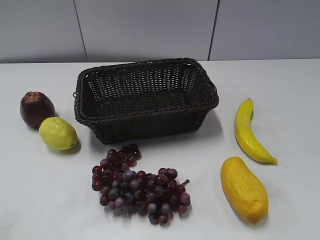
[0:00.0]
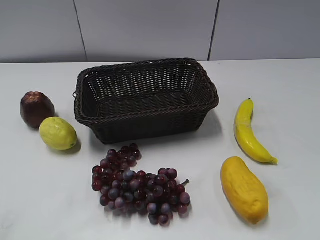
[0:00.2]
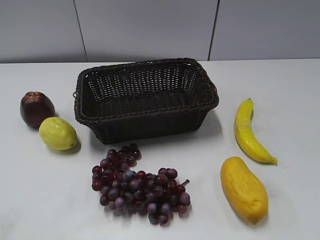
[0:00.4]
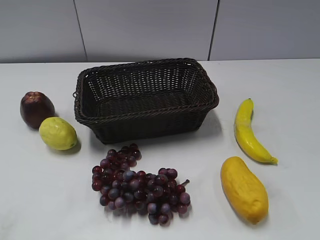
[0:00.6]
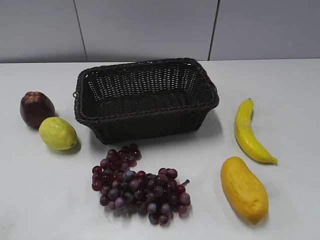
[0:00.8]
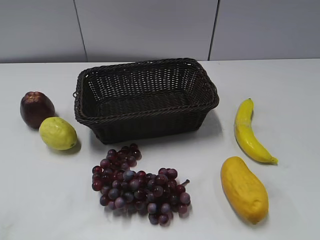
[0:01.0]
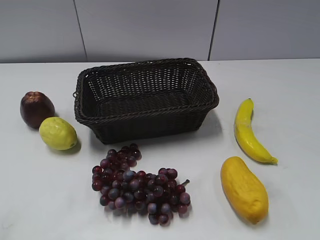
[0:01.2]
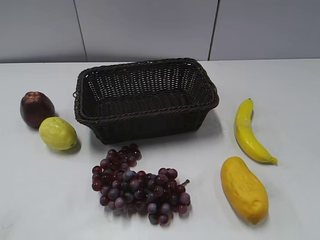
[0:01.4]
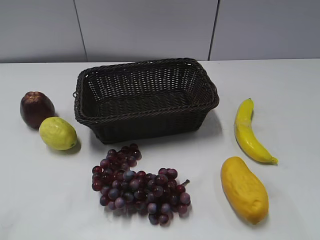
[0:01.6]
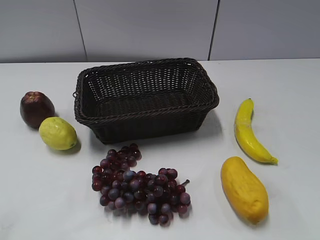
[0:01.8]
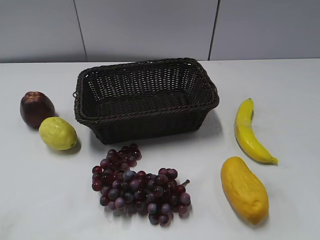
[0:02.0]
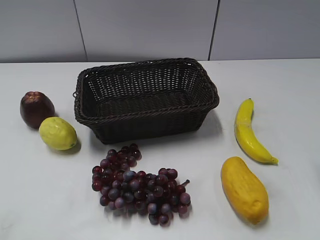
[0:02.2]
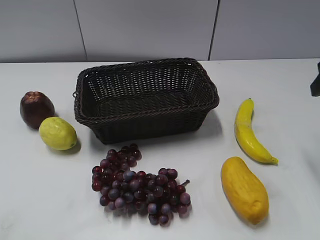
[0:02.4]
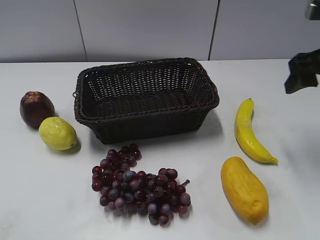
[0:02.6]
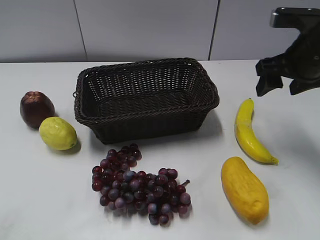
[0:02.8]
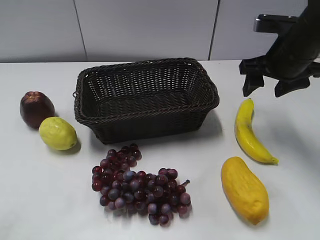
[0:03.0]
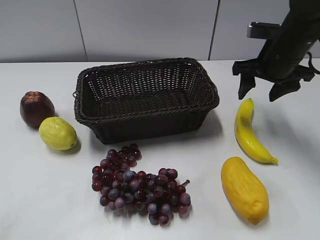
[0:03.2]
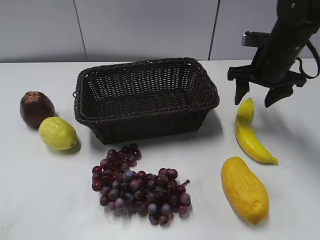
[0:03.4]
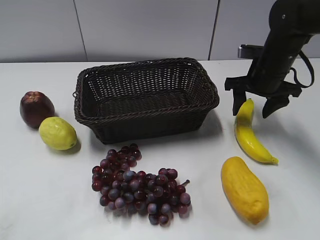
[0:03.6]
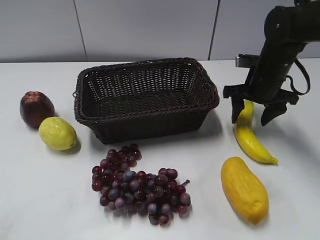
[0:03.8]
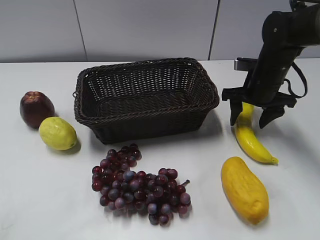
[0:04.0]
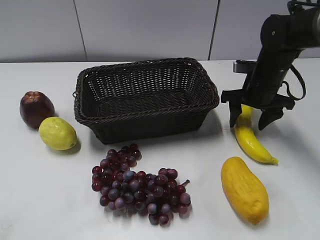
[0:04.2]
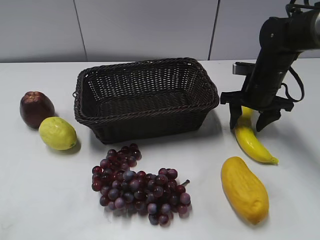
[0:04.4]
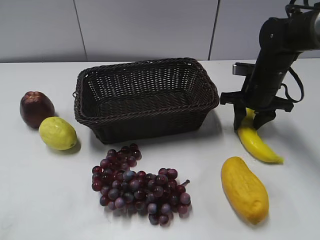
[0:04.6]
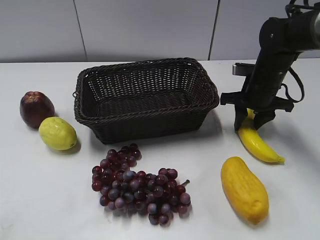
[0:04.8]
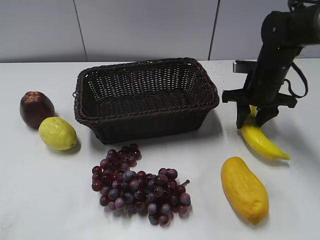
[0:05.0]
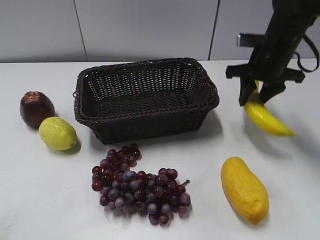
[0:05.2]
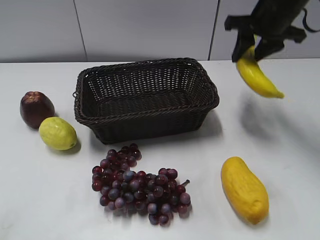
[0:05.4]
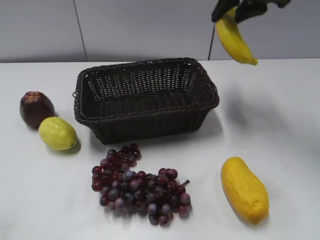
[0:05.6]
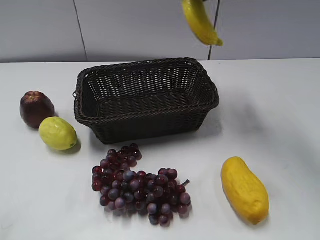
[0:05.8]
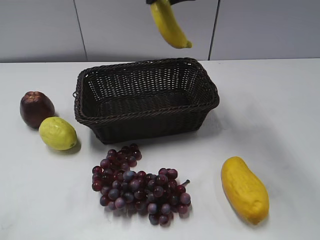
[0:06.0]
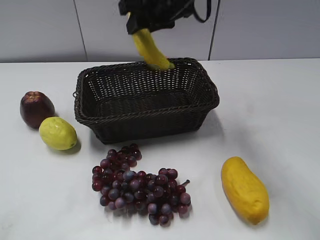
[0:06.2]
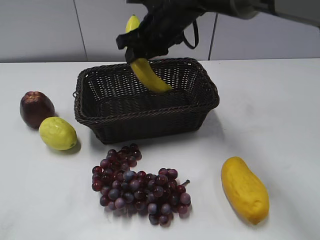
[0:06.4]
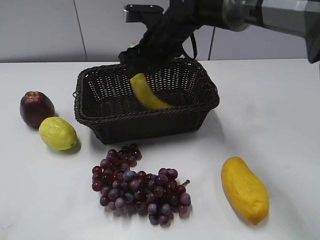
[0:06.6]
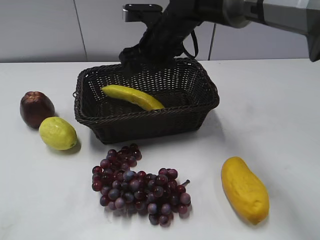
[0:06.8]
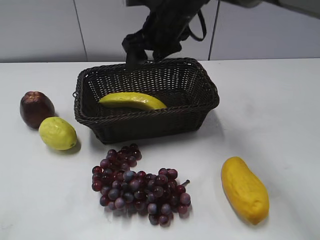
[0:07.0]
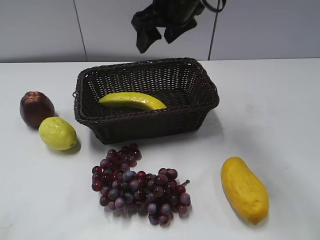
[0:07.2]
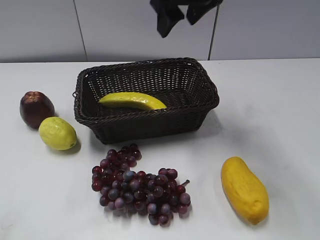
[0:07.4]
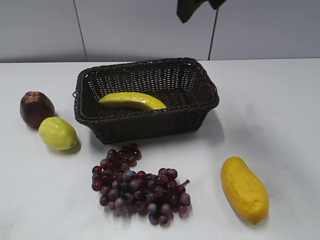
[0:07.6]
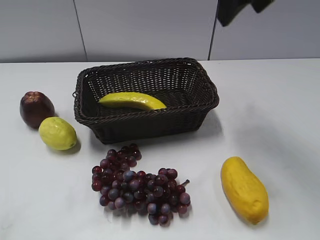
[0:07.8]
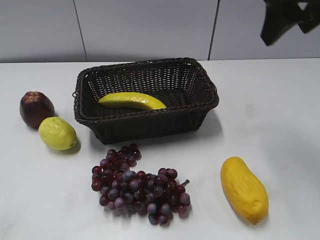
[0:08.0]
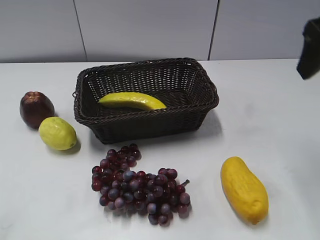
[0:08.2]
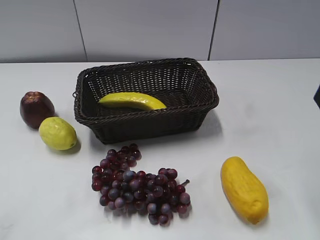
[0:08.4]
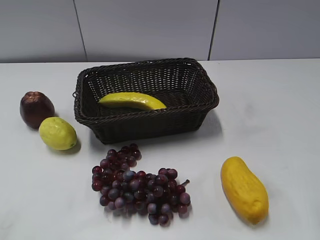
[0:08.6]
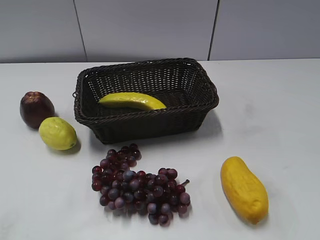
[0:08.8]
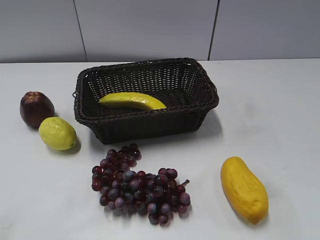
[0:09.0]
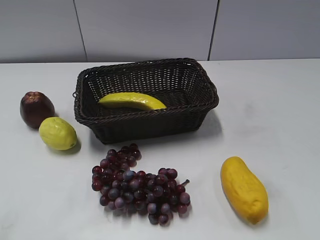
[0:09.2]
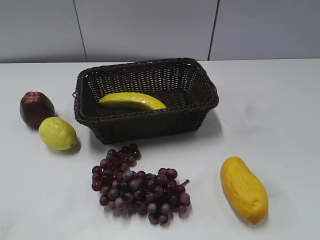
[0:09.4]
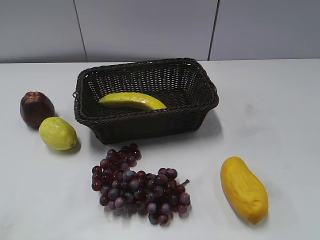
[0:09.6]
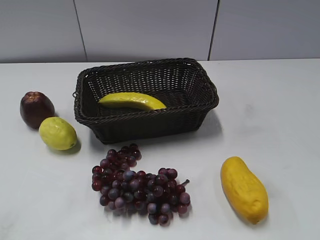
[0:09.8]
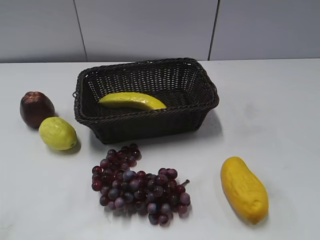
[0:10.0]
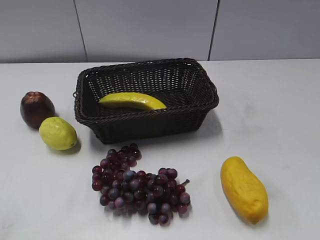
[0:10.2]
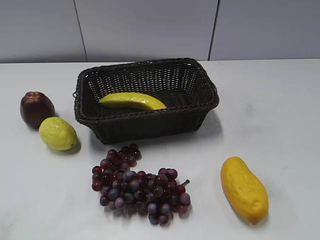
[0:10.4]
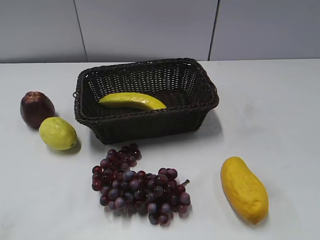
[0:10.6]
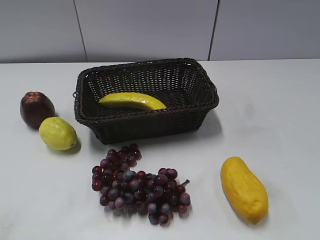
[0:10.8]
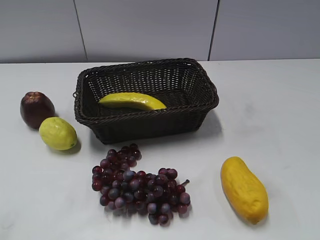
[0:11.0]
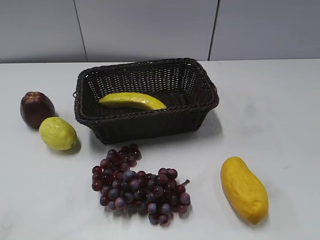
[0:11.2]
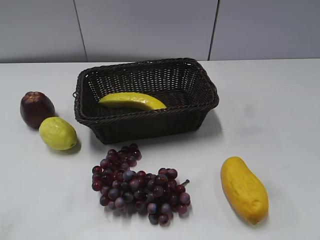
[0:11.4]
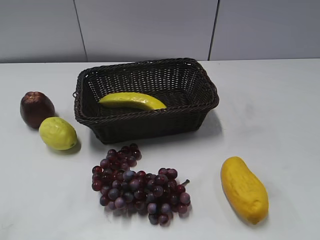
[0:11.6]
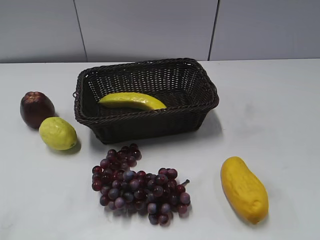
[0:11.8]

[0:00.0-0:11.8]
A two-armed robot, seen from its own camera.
Step, 0:02.4 to 0:04.6: Grasp the banana with right gripper.
Step, 0:04.8 to 0:06.8: Place the banana in the basket with right gripper.
0:01.4 to 0:03.0: The right gripper is displaced forward by some 30 cm.
0:03.0 to 0:04.4: The right gripper heads downward, covering roughly 10 cm.
0:04.4 to 0:06.0: The right gripper goes approximately 25 cm upward and to the left, and closes up.
0:06.0 to 0:07.4: The right gripper moves roughly 15 cm downward and comes back, and opens.
0:07.4 to 0:08.8: The right gripper goes some 30 cm backward and to the right.
0:10.4 to 0:11.8: The two grippers keep their place.
